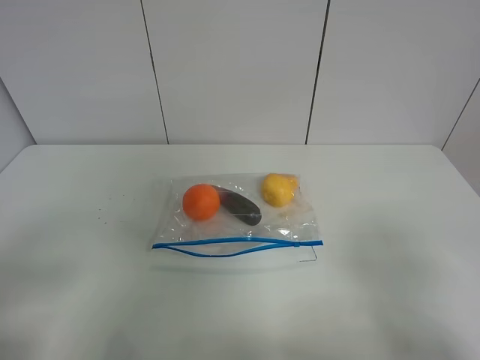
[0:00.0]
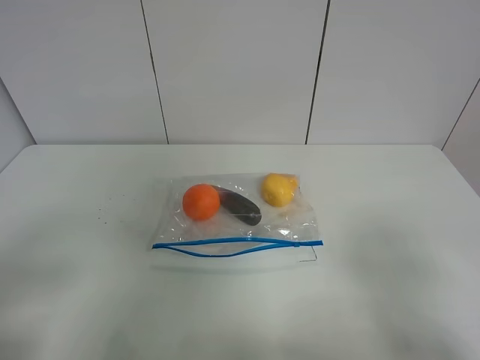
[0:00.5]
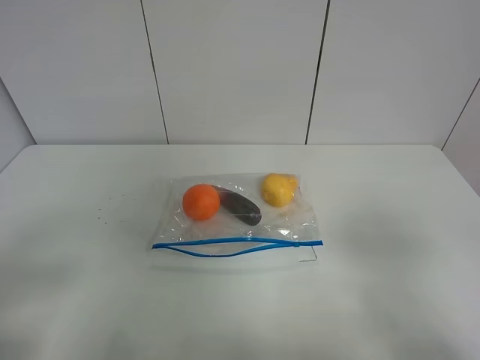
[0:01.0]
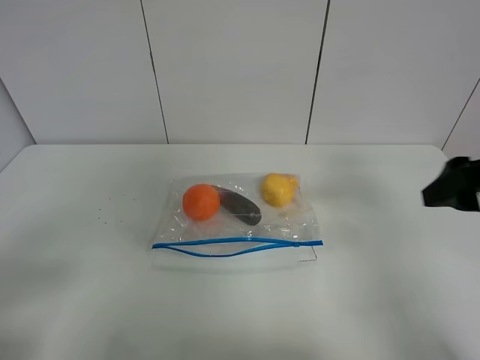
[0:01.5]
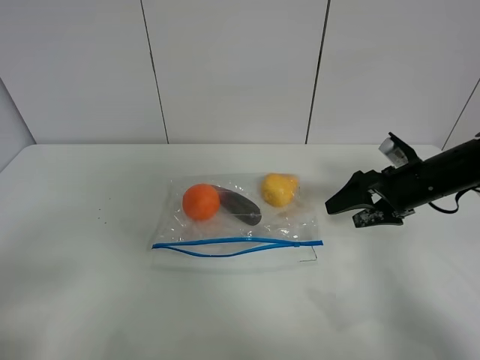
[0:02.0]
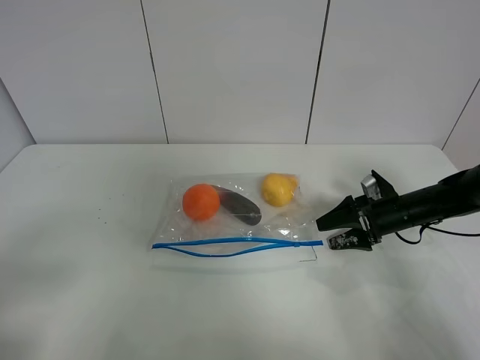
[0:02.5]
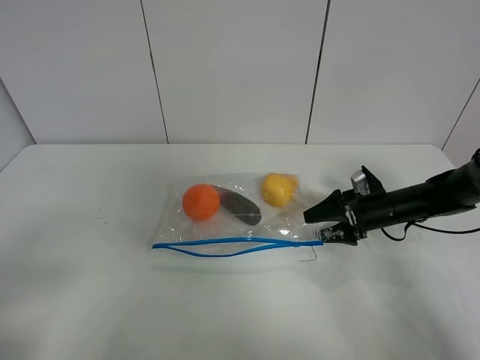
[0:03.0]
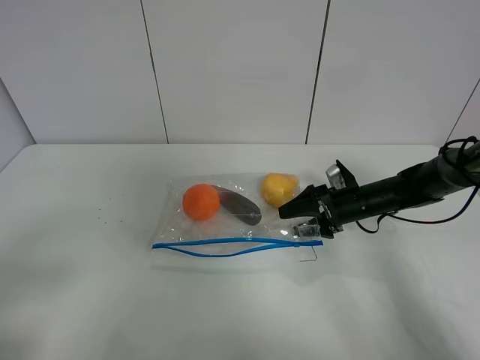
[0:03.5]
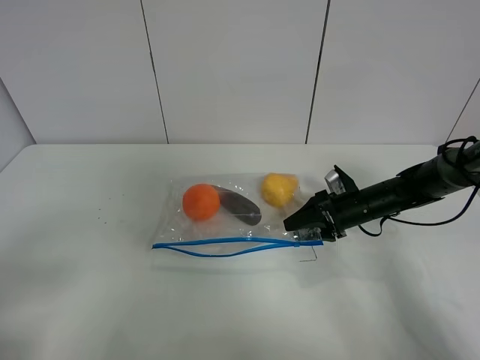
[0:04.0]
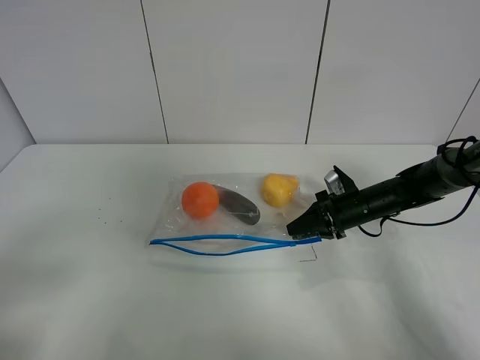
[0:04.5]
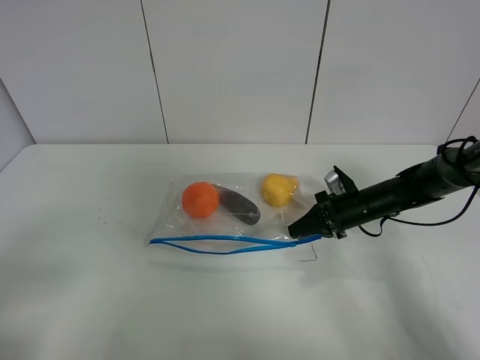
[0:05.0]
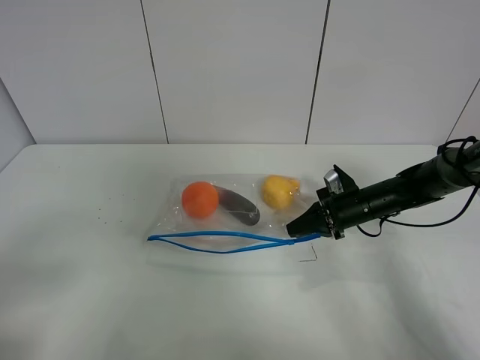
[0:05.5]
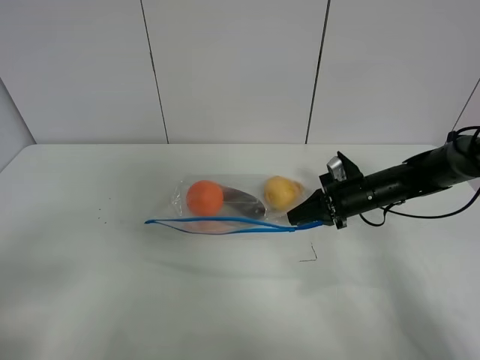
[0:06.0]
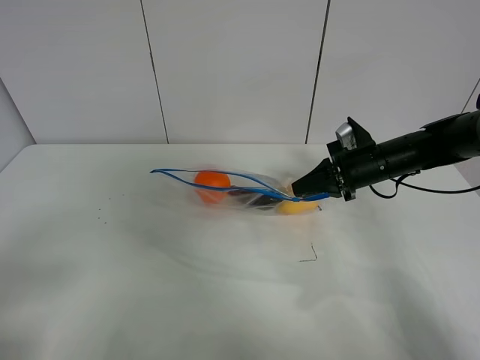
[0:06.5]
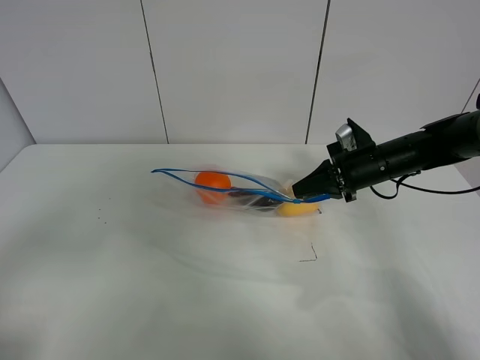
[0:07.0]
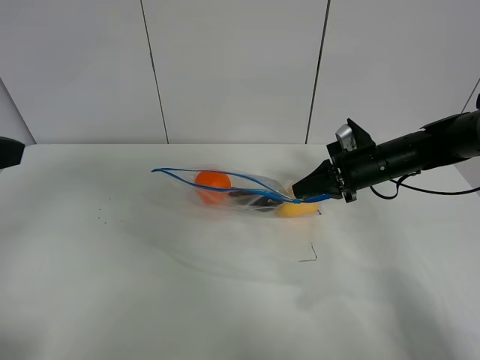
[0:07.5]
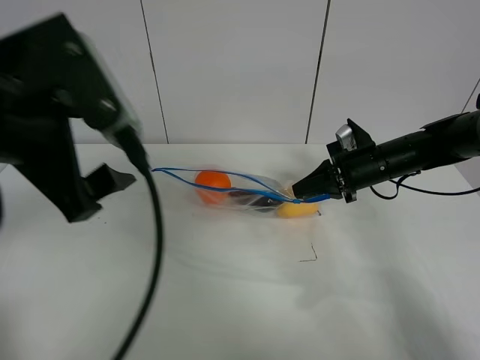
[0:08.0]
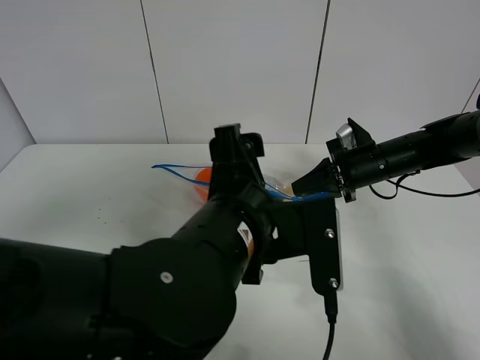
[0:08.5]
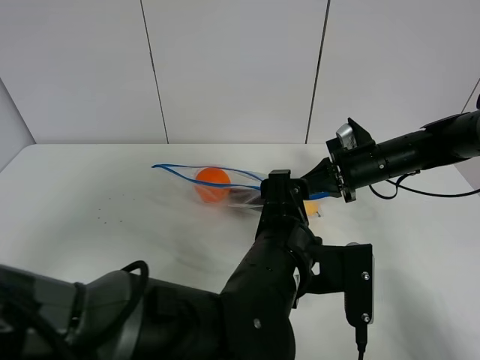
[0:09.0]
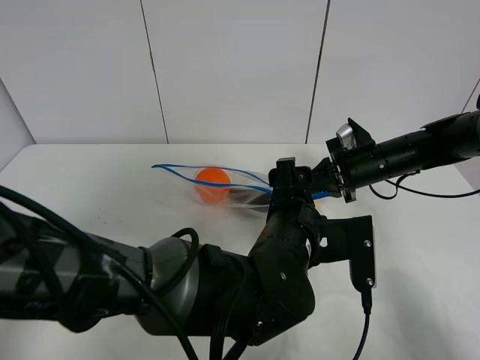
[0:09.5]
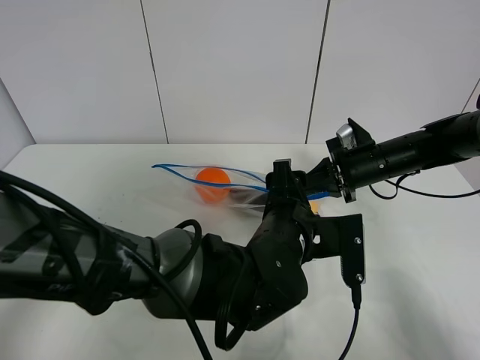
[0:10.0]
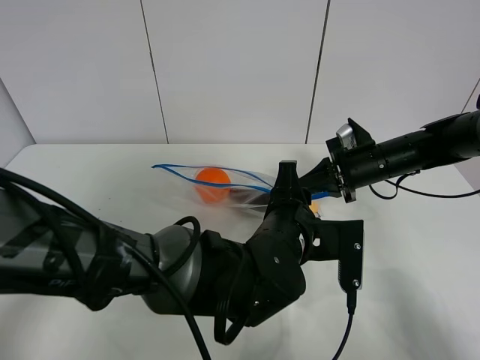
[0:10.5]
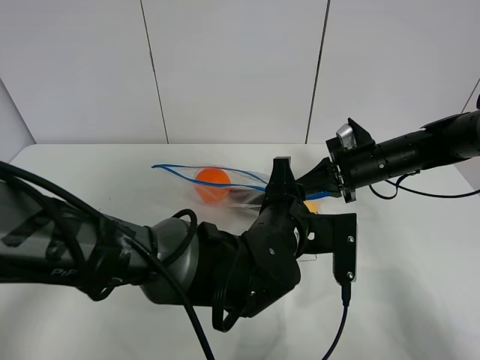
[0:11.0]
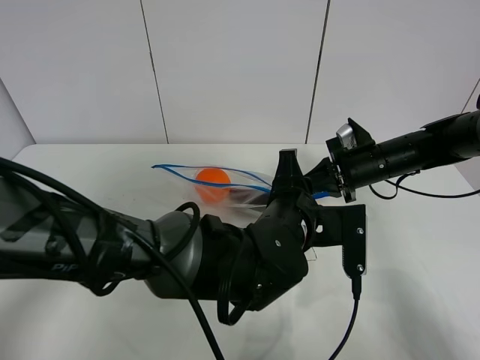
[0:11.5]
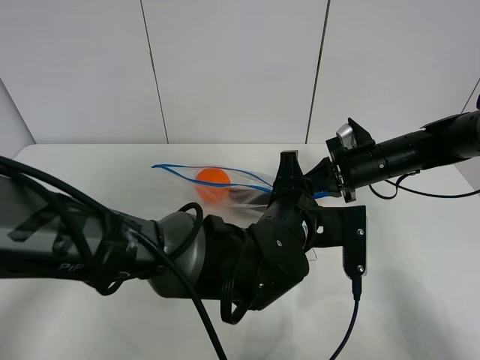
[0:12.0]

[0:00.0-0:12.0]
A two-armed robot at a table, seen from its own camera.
Step, 0:00.0 to 0:04.5: Grasp the fruit bag with right gripper.
Step, 0:05.0 to 0:06.5: Lift the fruit bag with your right gripper.
0:00.0 to 0:02.0: The right gripper is displaced forward by some 30 cm.
0:02.0 to 0:04.0: The right gripper heads downward and to the left, covering roughly 10 cm, and closes.
0:04.0 to 0:06.0: The right gripper closes its fingers.
0:06.0 to 0:08.0: The left gripper travels forward, to the right and upward by roughly 25 cm. Meanwhile the right gripper travels upward by some 5 cm.
0:08.0 to 0:10.0: The left gripper is displaced to the right and downward by some 30 cm.
0:10.0 to 0:12.0: The left gripper closes its fingers.

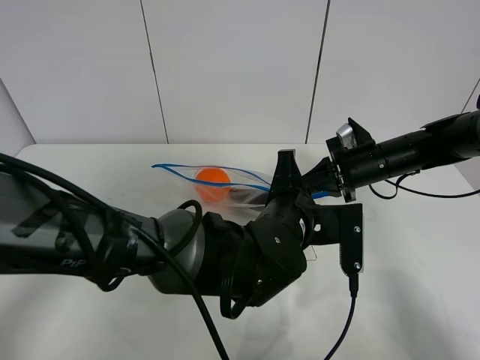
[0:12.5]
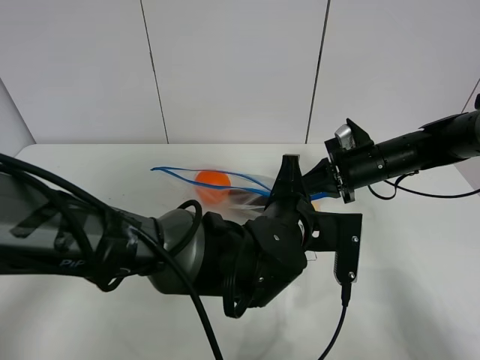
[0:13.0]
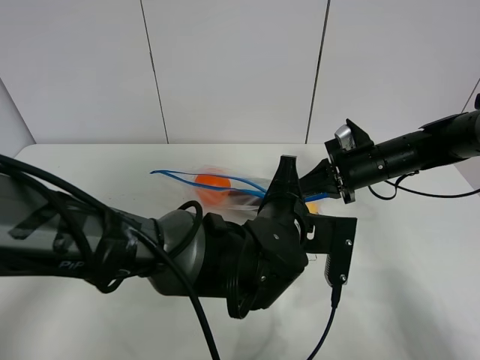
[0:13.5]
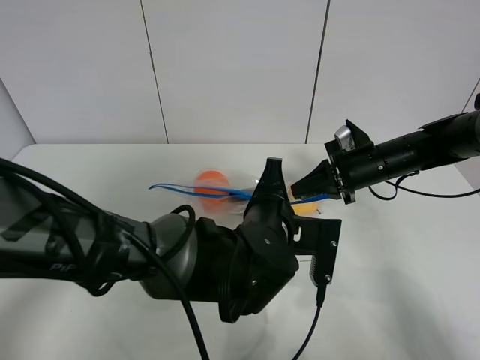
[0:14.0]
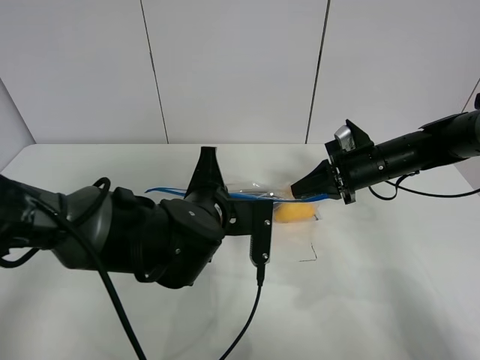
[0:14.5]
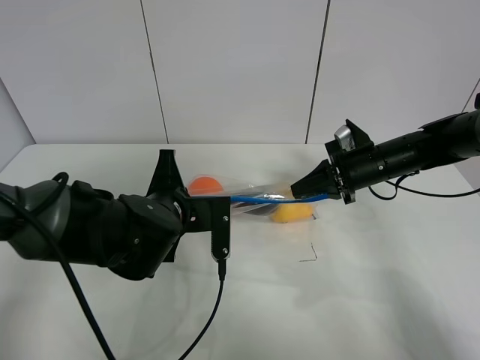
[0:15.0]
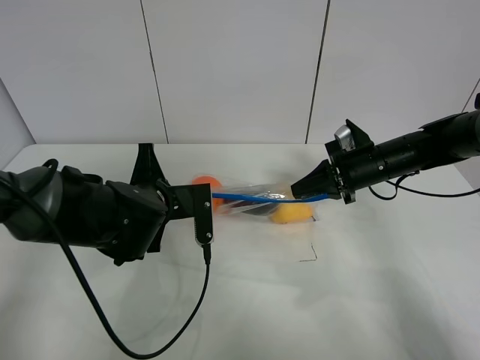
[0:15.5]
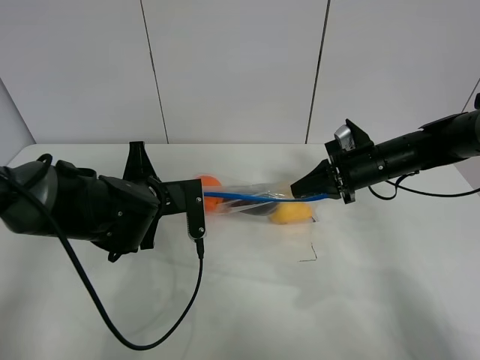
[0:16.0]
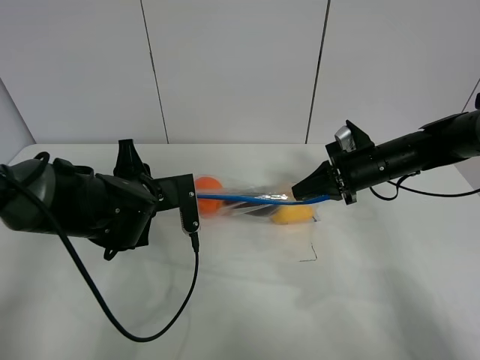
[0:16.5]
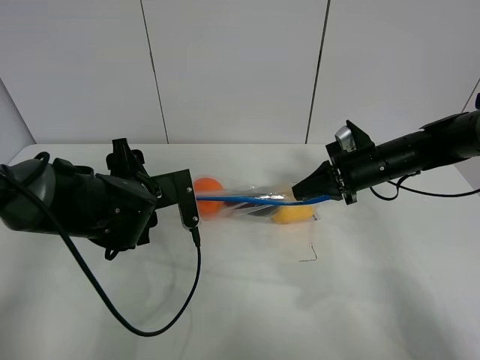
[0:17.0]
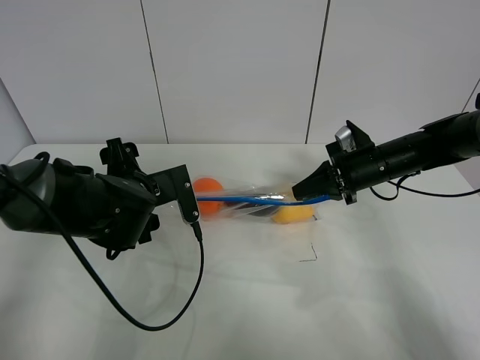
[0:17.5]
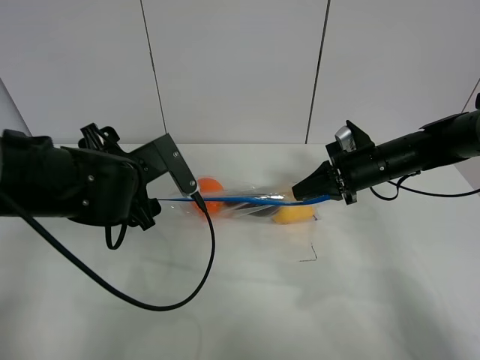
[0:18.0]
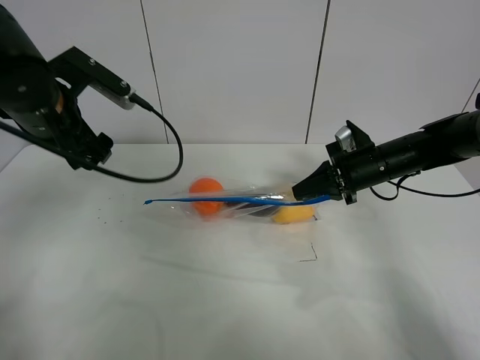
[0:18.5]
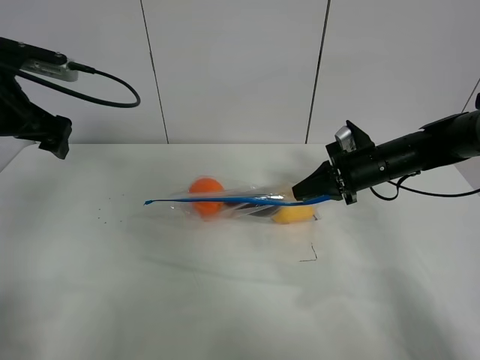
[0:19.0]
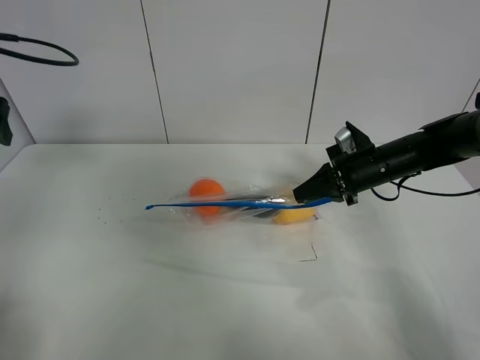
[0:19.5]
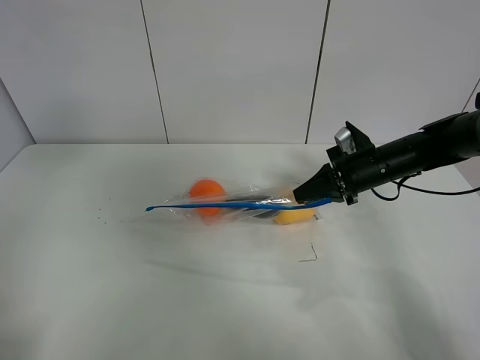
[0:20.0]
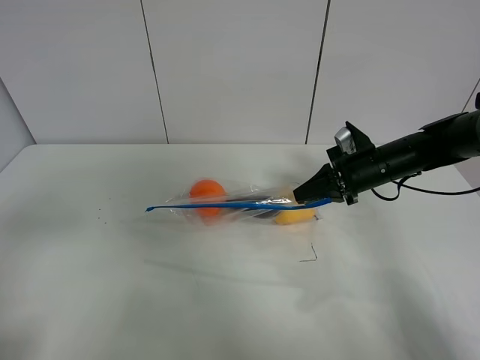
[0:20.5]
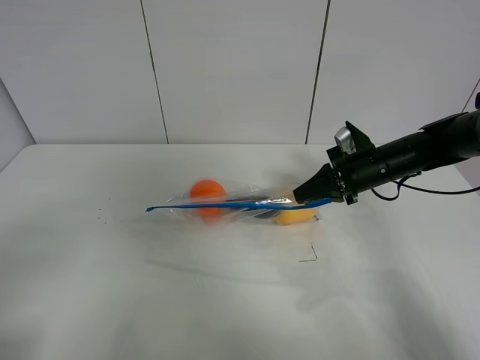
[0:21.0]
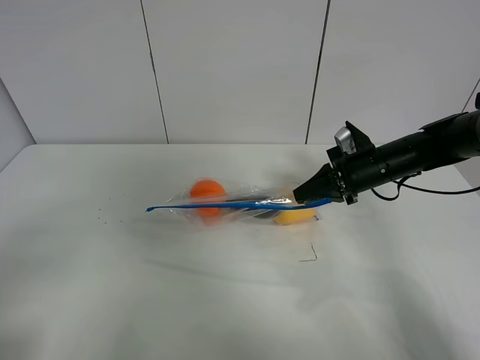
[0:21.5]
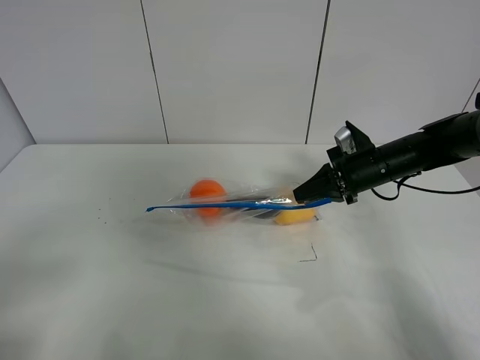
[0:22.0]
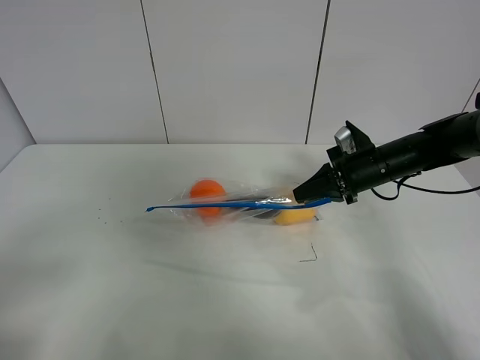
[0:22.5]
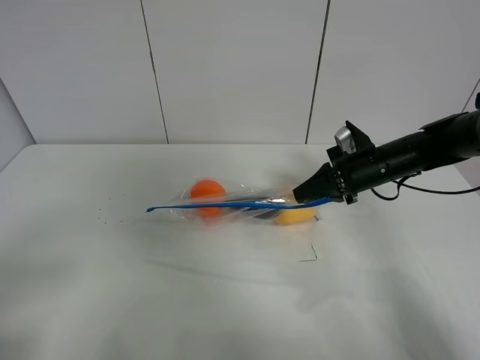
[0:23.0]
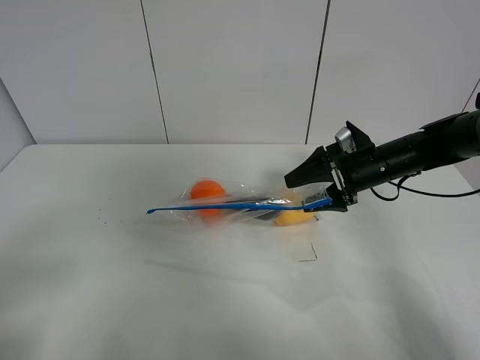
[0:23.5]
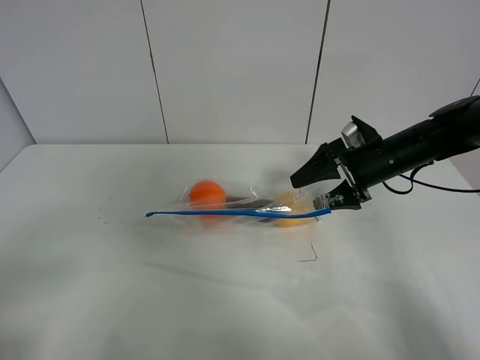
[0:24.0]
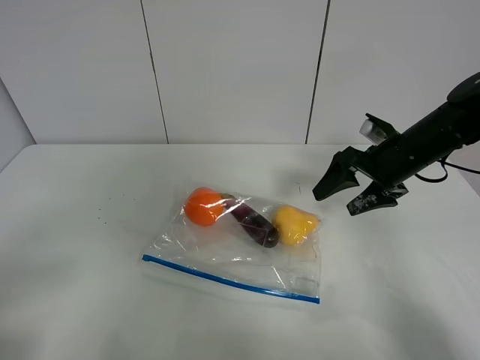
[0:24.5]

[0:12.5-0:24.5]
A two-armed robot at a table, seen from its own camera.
Step, 0:12.5 to 0:16.5: Pull the fruit bag with left gripper.
0:12.5 to 0:14.5: The left gripper goes approximately 10 cm to the left.
0:14.5 to 0:16.5: The left gripper is displaced to the left by some 10 cm, and opens its fingers.
0:16.5 to 0:18.5: The left gripper is displaced upward and to the left by some 15 cm, and opens its fingers.
0:18.5 to 0:20.5: The left gripper shifts about 25 cm backward and to the left.
0:22.5 to 0:24.5: The right gripper shifts by roughly 5 cm, and opens.

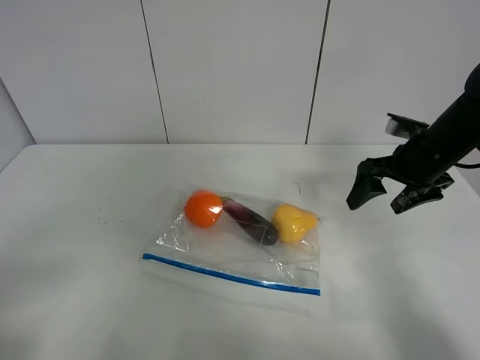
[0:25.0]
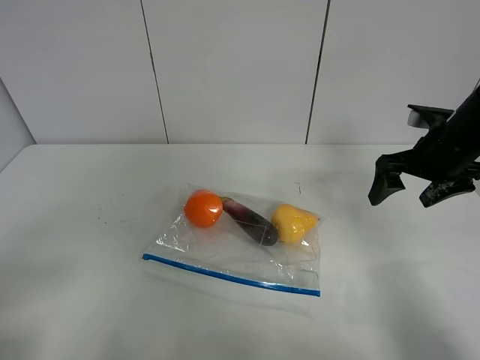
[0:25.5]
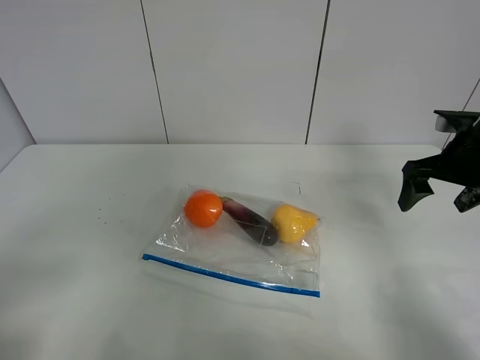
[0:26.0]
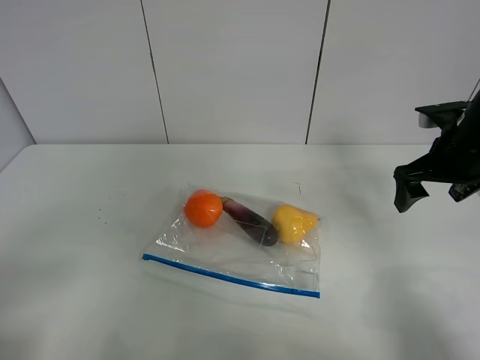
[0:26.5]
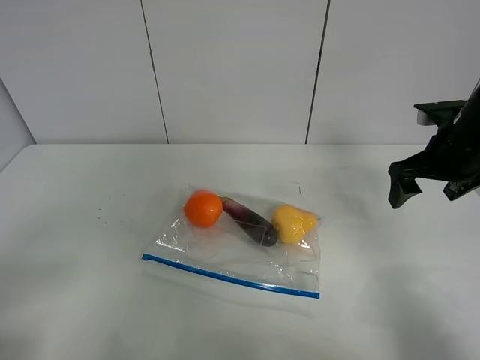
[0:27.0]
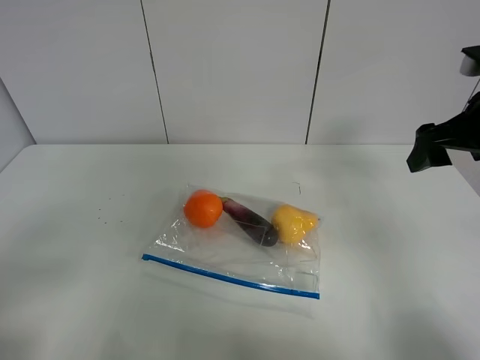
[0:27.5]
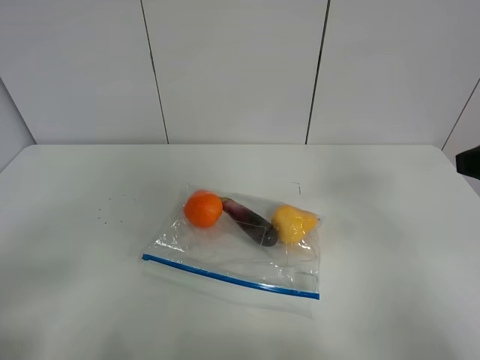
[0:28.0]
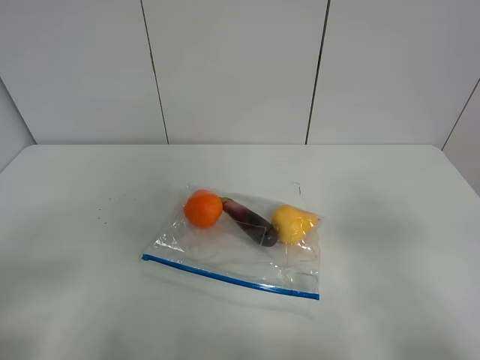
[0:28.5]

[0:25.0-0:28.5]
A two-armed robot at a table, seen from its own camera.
0:27.0 to 0:28.5: The right gripper is displaced backward by about 30 cm.
